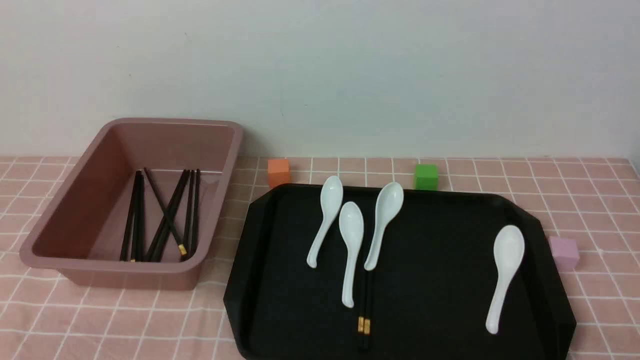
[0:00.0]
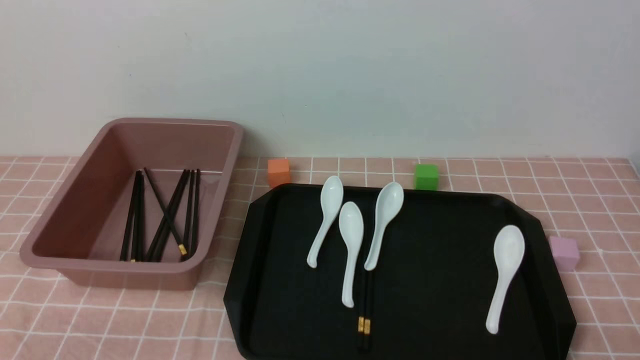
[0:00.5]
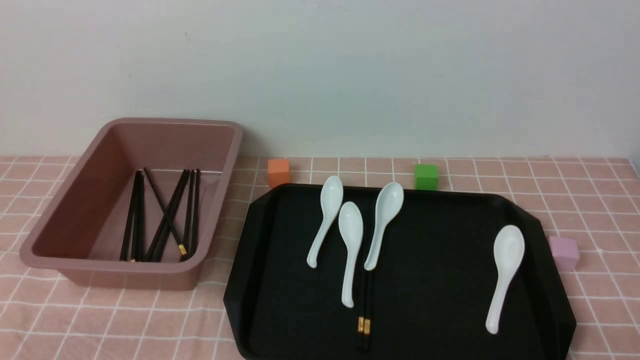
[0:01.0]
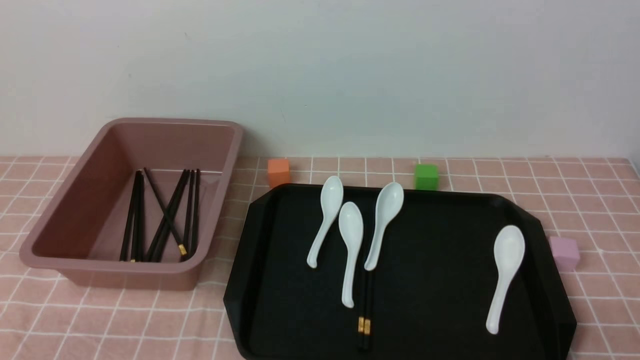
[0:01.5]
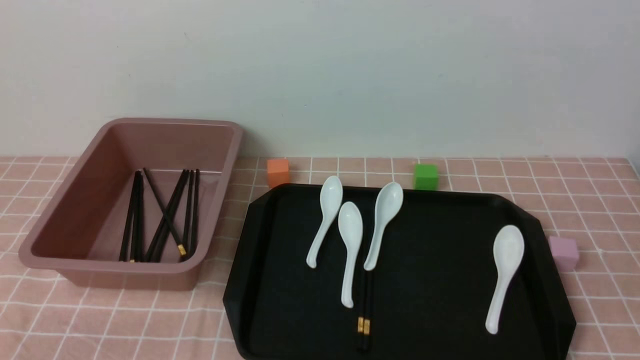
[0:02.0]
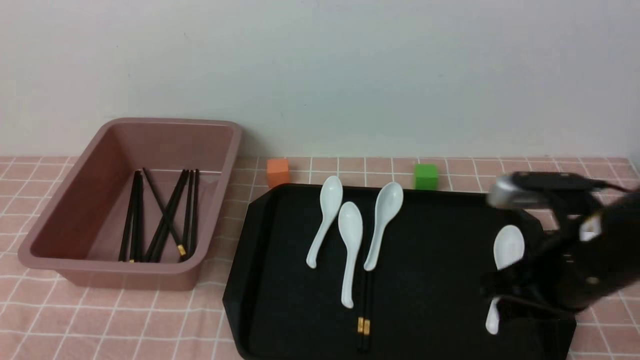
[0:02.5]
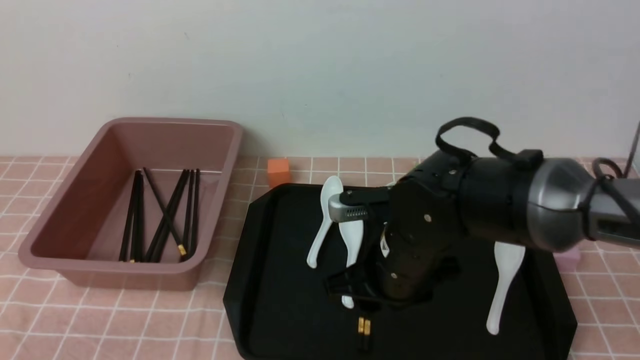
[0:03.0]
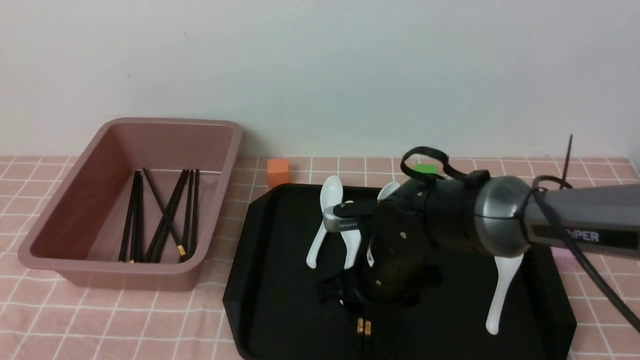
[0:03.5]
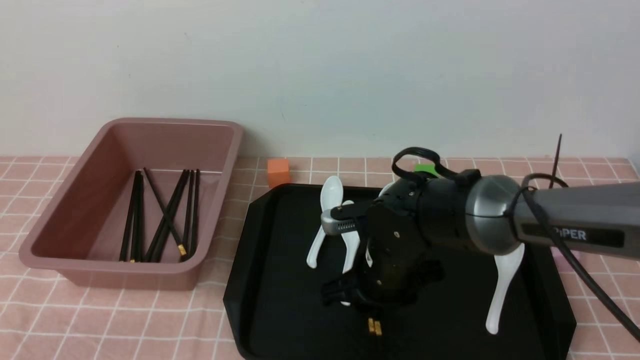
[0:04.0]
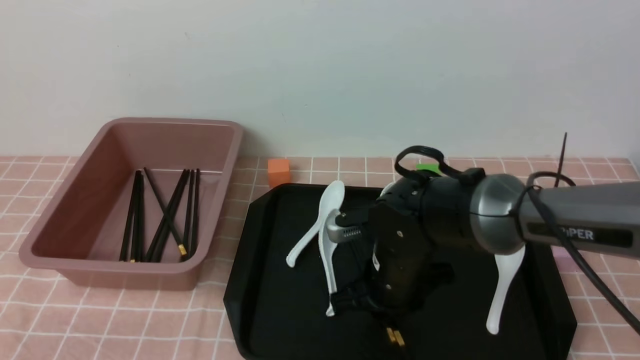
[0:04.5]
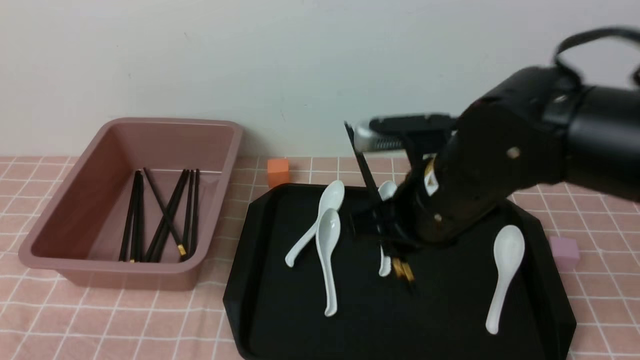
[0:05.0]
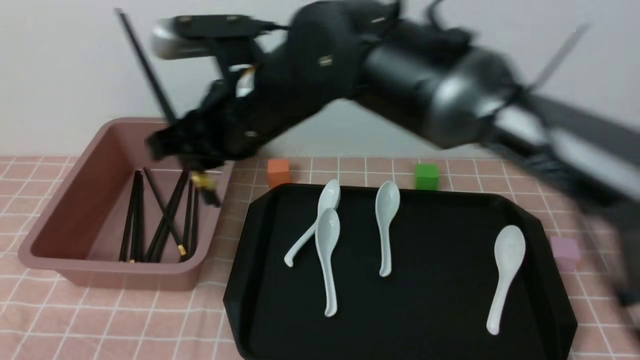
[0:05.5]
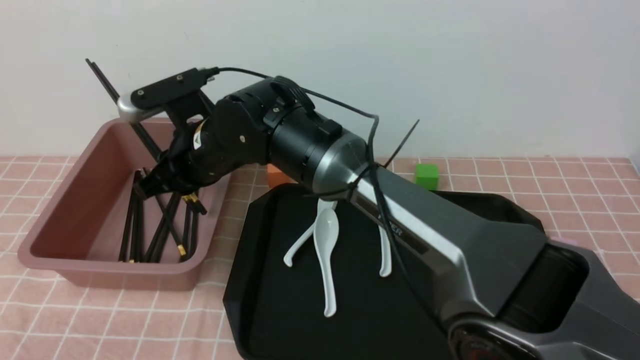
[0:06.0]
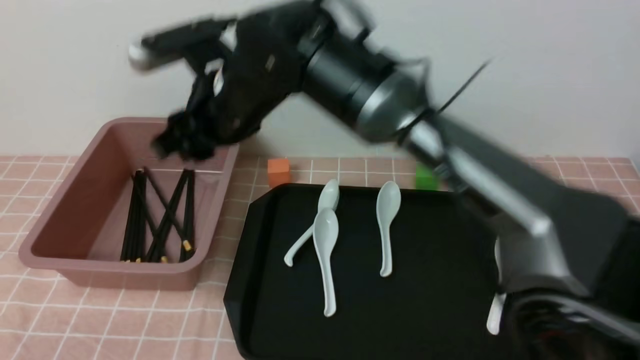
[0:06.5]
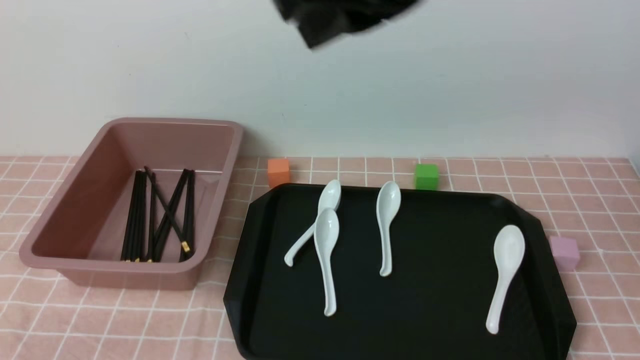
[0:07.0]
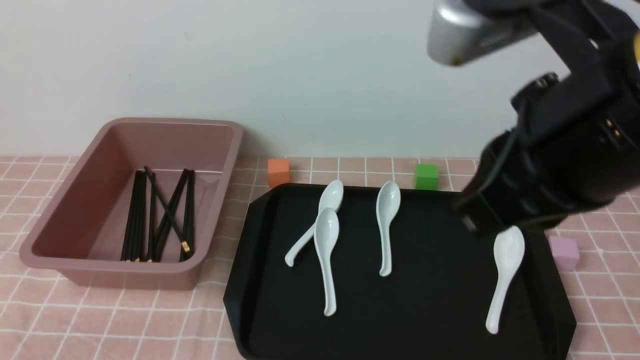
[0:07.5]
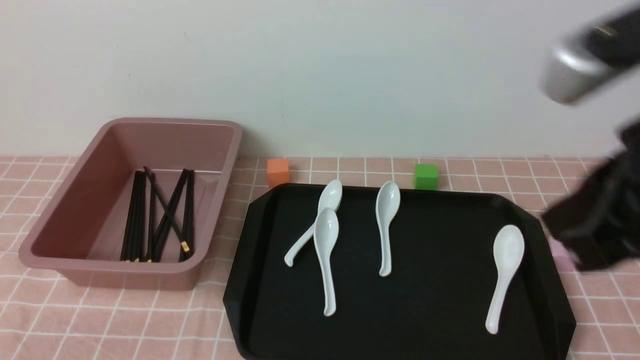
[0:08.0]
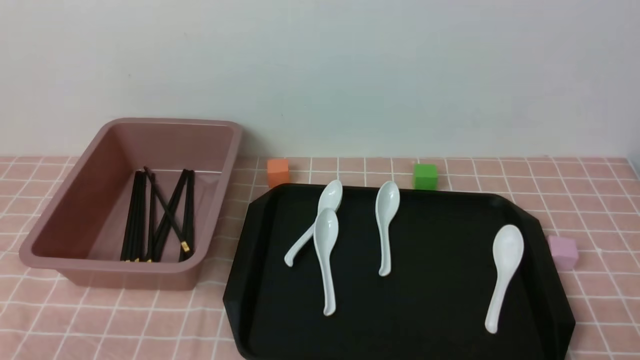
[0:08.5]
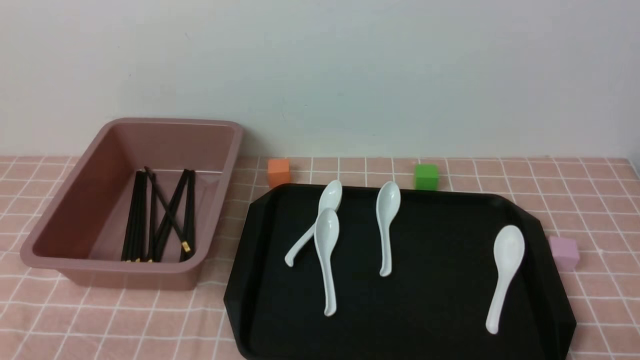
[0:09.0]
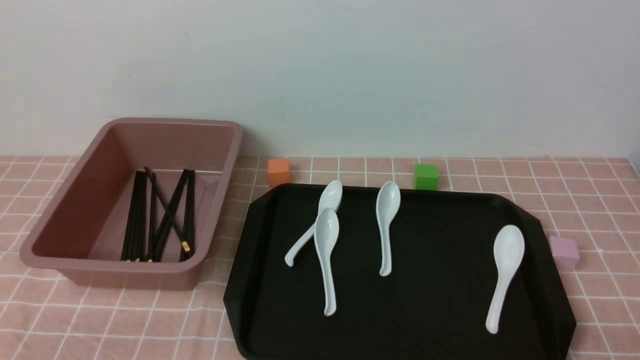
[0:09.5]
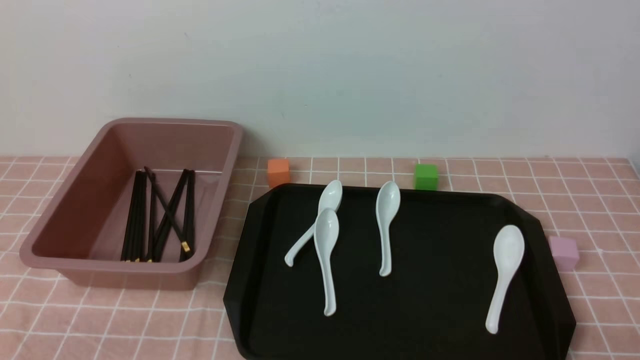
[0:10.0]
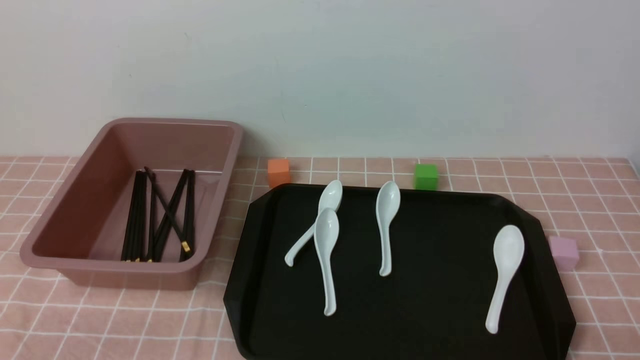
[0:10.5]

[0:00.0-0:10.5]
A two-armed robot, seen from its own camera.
Step, 0:00.0 to 0:04.5: use the right arm to grab a pair of chopsticks.
Step, 0:05.0 to 0:06.5: use the right arm to put the chopsticks into the lunch box.
0:02.0 to 0:04.0: The right gripper shifts approximately 35 cm to the left, forward and downward, and opens.
0:04.0 to 0:06.5: The right gripper swings up and down, some 20 cm each way, with 2 reversals.
0:06.5 to 0:08.5: The right gripper travels to the right, backward and downward by some 50 cm, and closes its fingers.

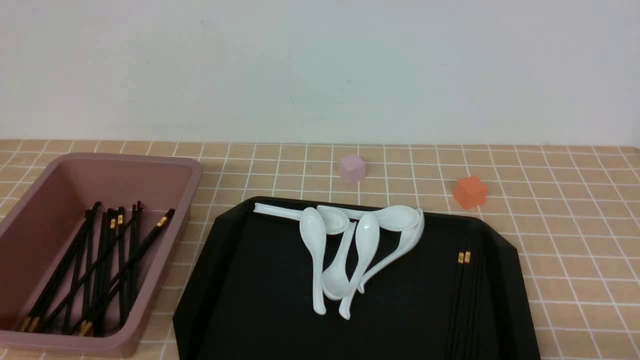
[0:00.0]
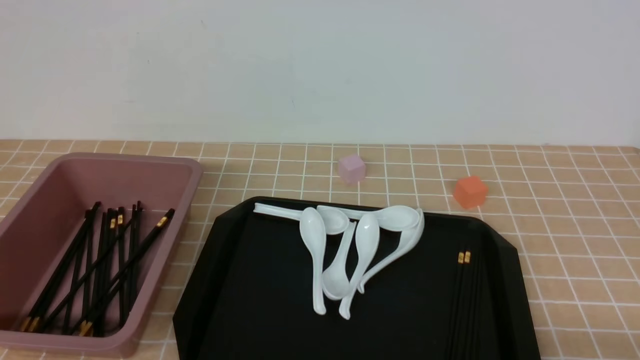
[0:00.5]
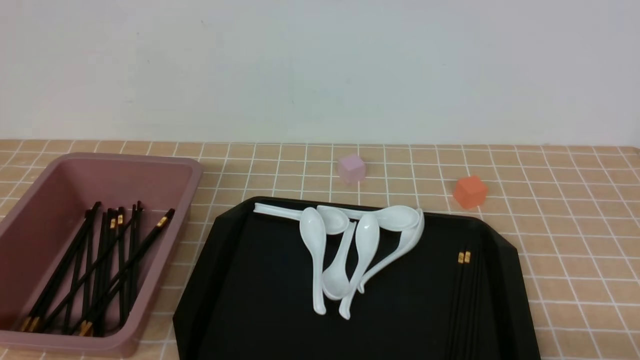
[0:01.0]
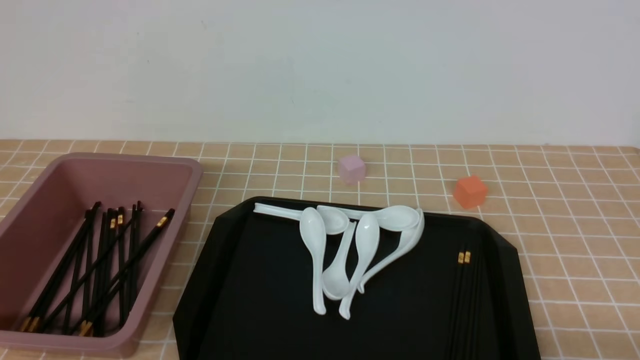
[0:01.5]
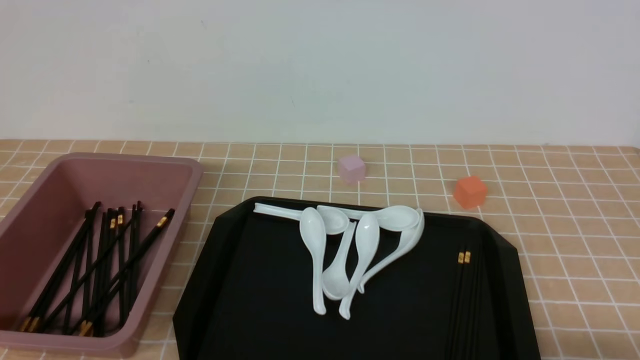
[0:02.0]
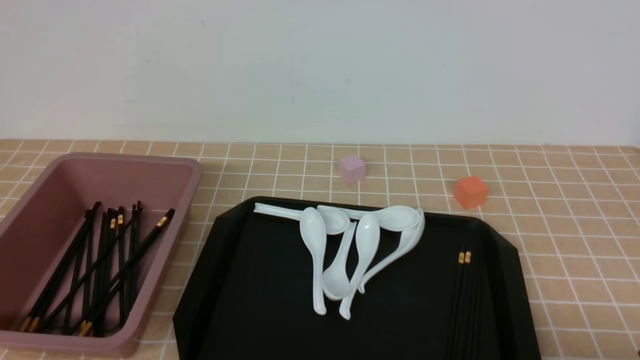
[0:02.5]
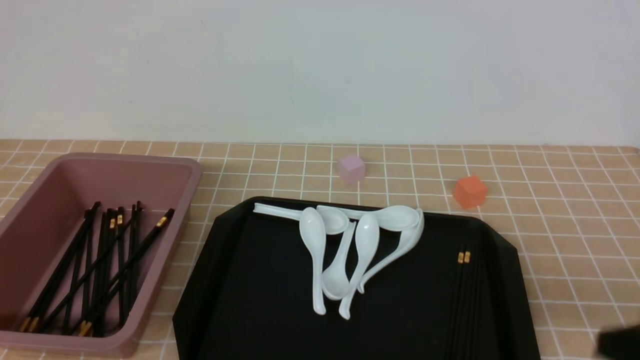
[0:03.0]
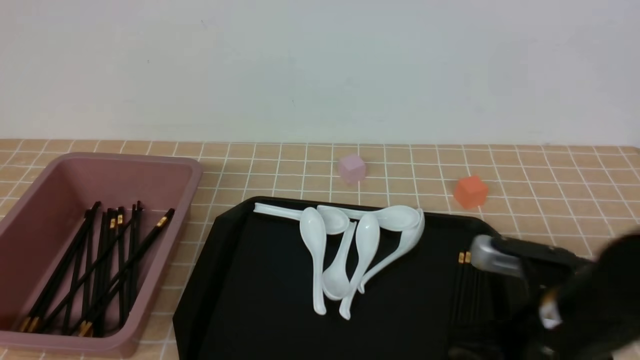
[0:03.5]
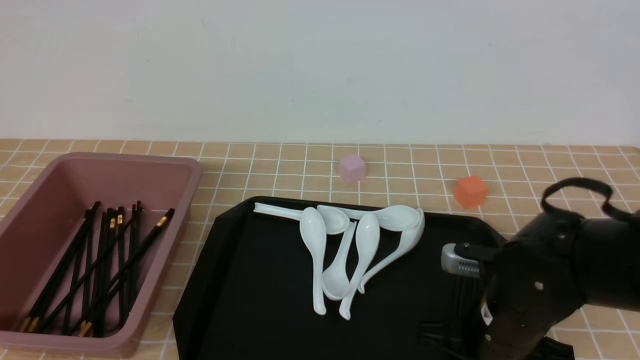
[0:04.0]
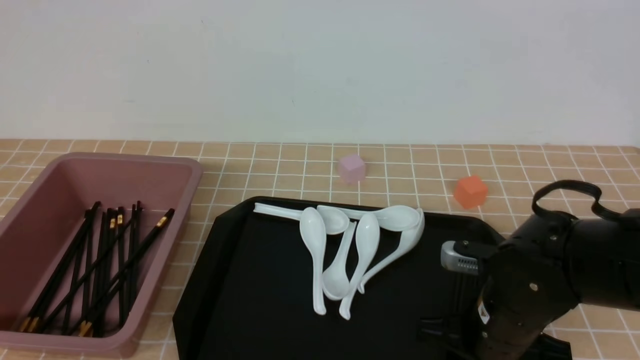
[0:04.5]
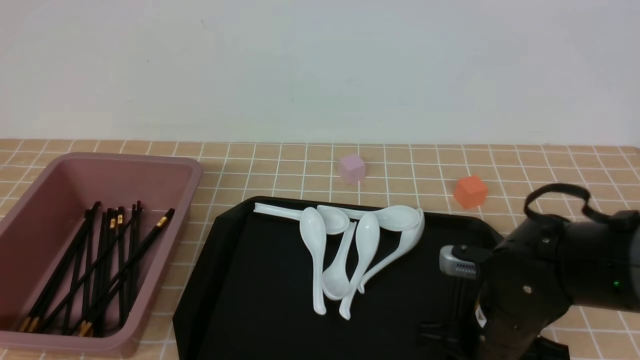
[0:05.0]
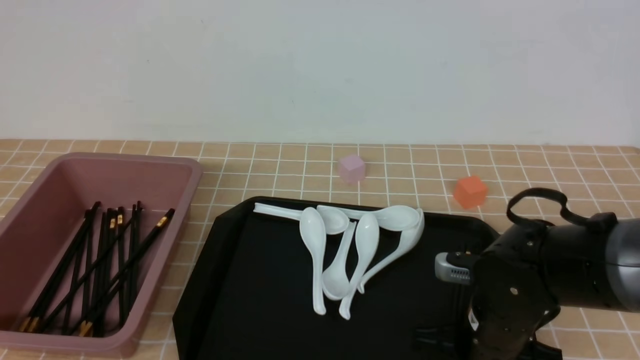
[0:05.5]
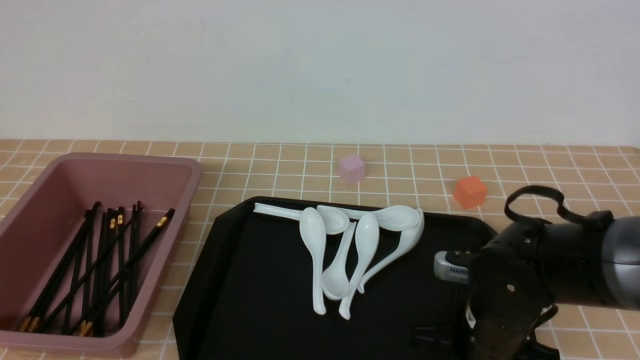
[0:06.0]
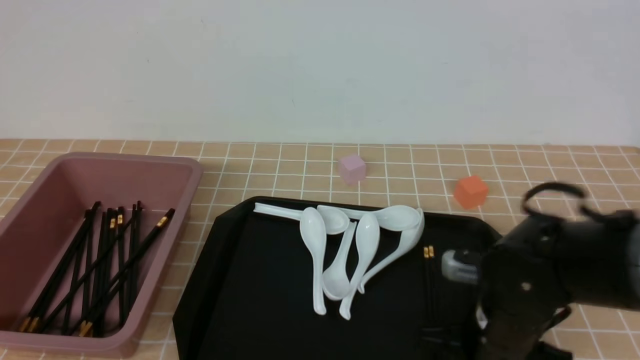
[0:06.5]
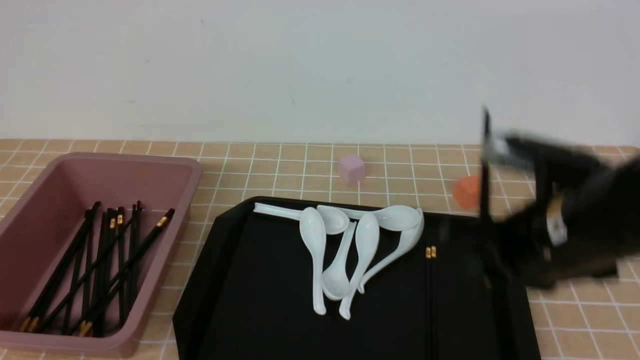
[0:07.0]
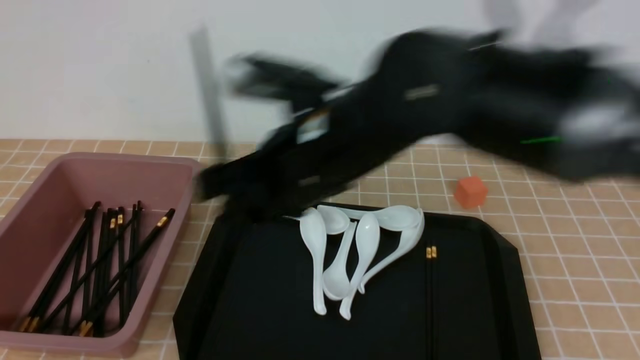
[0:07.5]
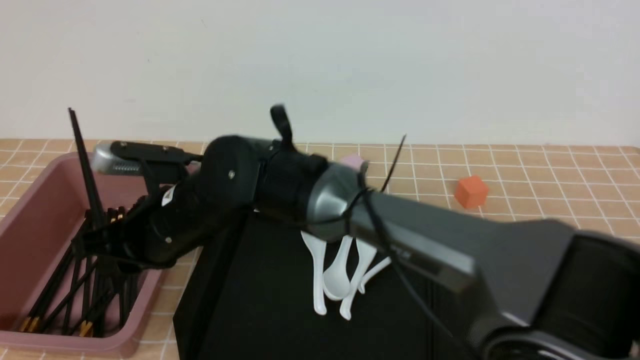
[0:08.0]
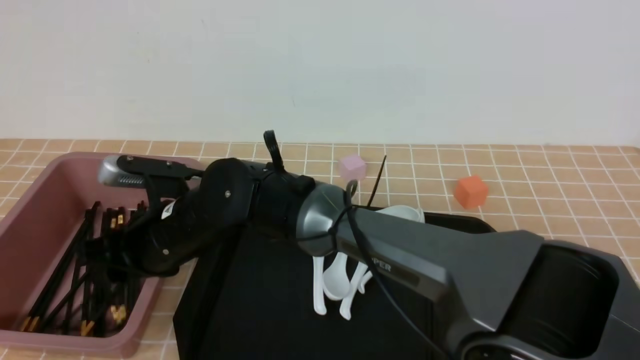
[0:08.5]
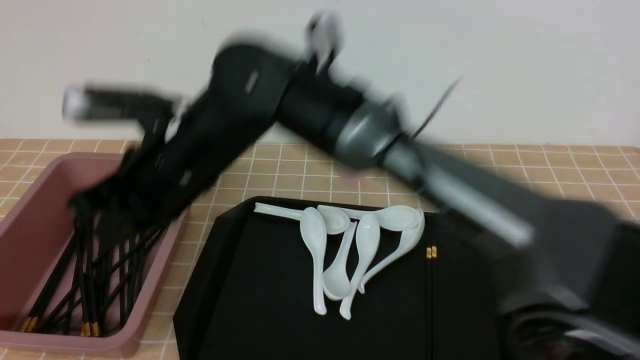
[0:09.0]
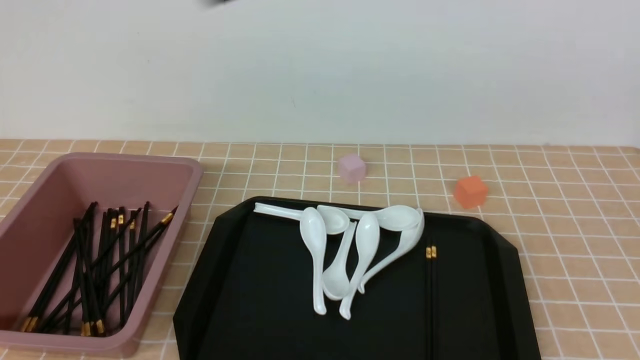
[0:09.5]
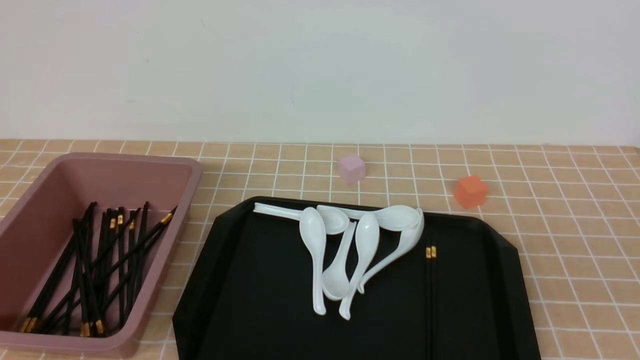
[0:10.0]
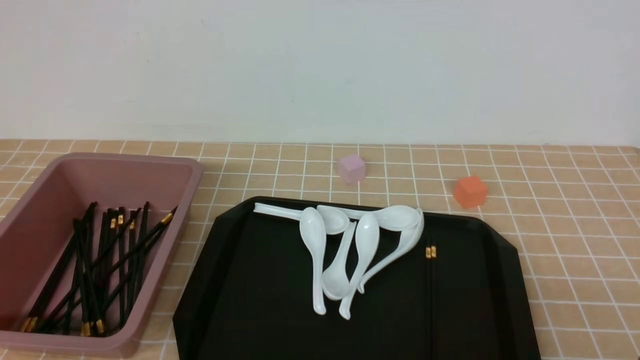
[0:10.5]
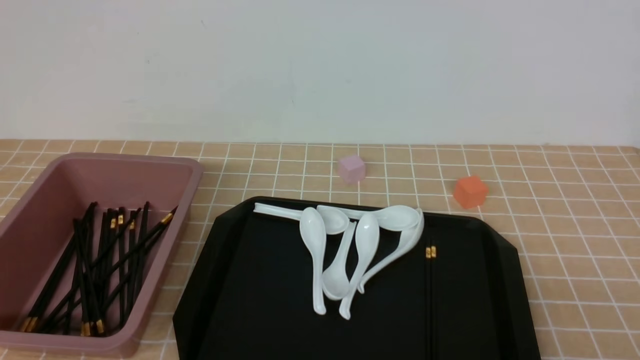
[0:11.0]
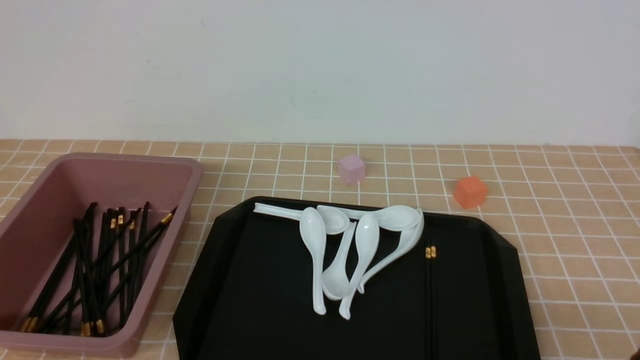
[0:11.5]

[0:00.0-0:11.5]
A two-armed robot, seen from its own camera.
Step, 0:00.0 to 0:06.5: use the right arm to grab a pair of chopsticks.
Step, 0:07.0 to 0:08.5: use the right arm to put the chopsticks into the lunch box.
0:02.0 to 0:04.0: The right gripper moves forward and to the left, approximately 25 cm, and closes, then reopens.
0:04.0 to 0:06.0: The right gripper closes.
0:06.0 to 0:07.5: The right gripper travels upward and to the left by about 25 cm.
0:07.5 to 0:09.5: The right gripper is displaced upward, backward and to the right by about 25 cm, and closes.
0:09.5 to 0:11.5: The right gripper travels downward, to the right and backward by some 40 cm.
